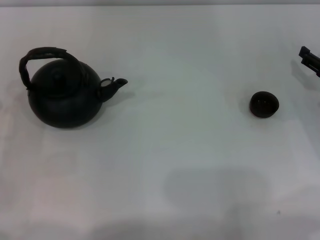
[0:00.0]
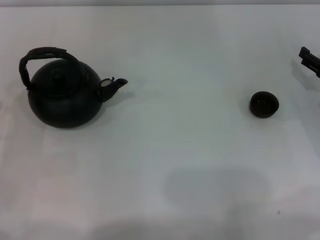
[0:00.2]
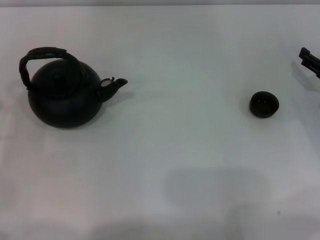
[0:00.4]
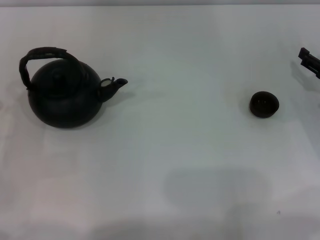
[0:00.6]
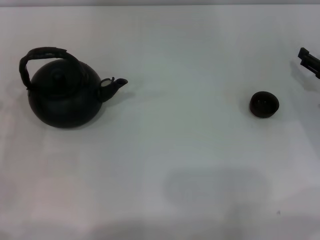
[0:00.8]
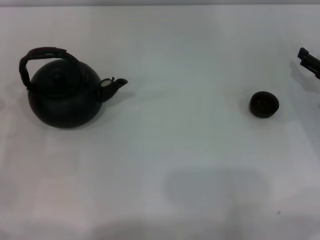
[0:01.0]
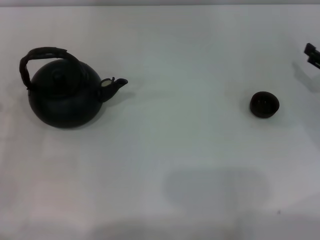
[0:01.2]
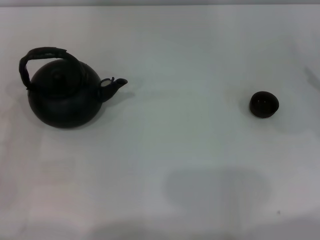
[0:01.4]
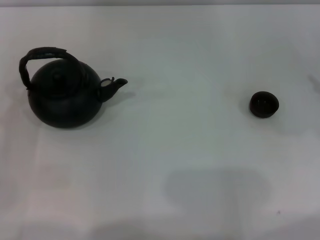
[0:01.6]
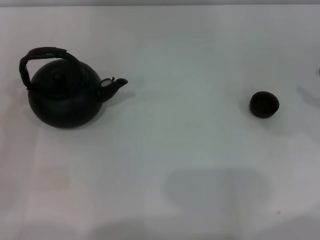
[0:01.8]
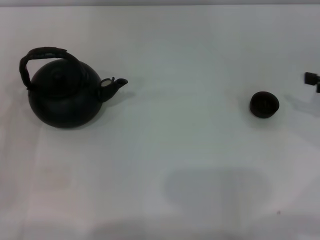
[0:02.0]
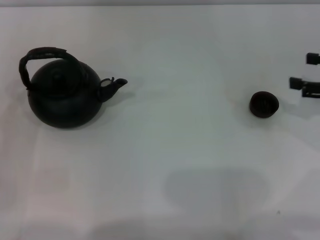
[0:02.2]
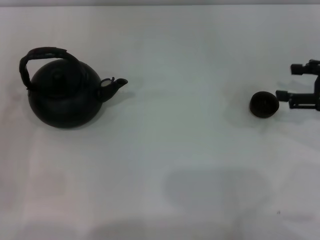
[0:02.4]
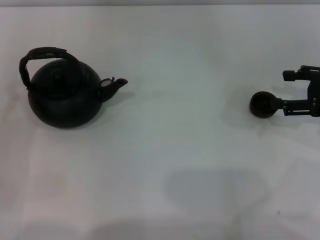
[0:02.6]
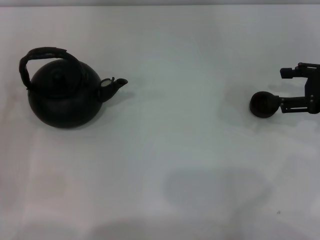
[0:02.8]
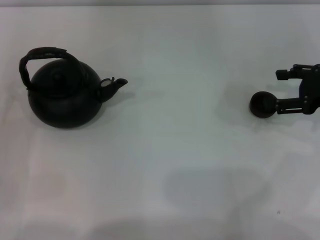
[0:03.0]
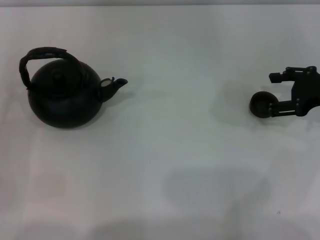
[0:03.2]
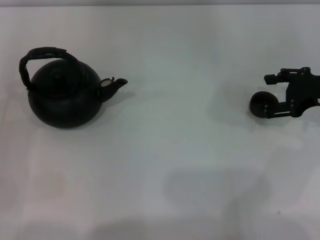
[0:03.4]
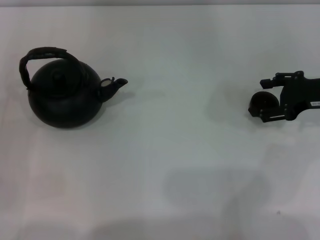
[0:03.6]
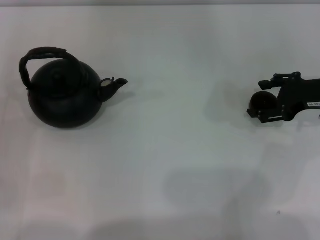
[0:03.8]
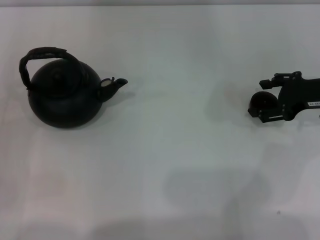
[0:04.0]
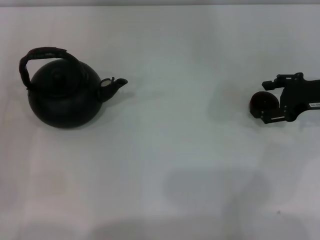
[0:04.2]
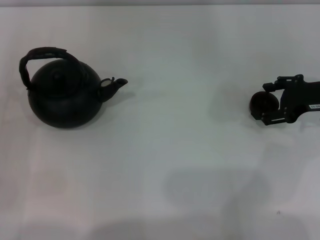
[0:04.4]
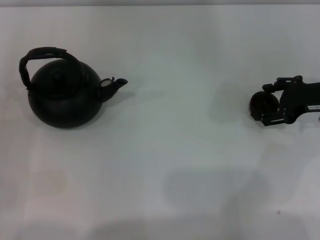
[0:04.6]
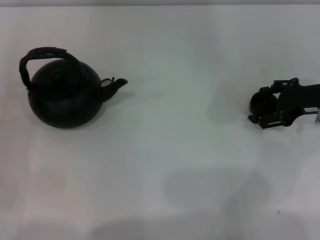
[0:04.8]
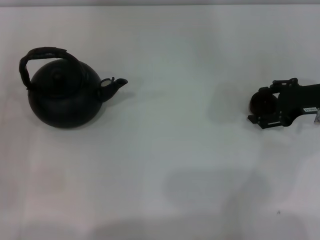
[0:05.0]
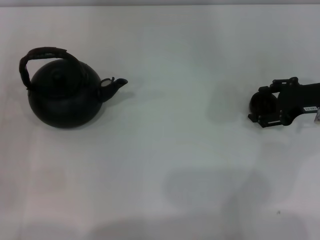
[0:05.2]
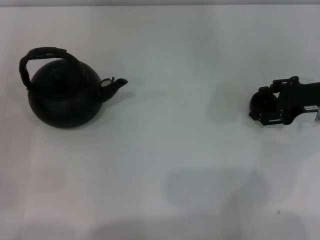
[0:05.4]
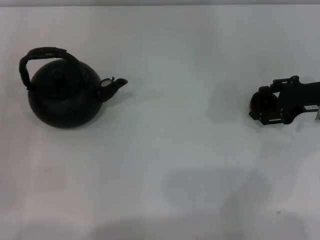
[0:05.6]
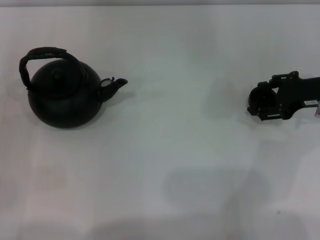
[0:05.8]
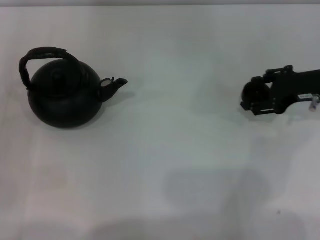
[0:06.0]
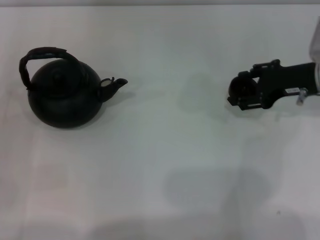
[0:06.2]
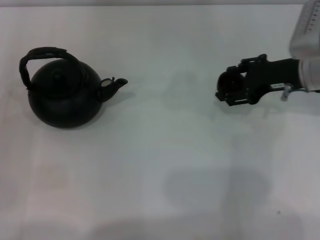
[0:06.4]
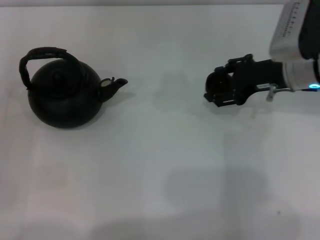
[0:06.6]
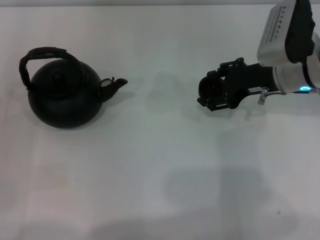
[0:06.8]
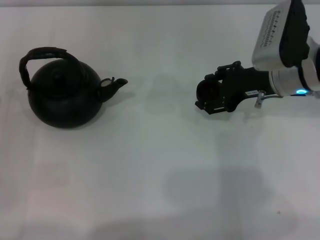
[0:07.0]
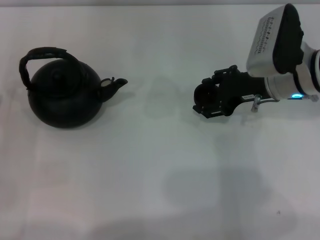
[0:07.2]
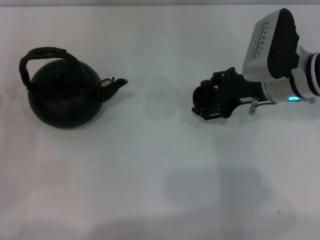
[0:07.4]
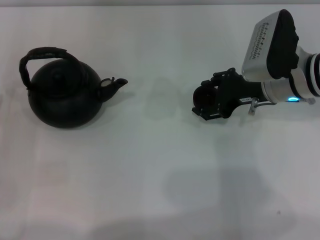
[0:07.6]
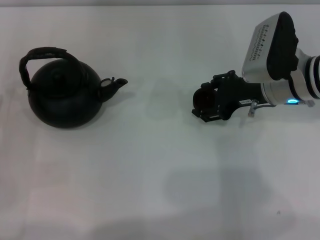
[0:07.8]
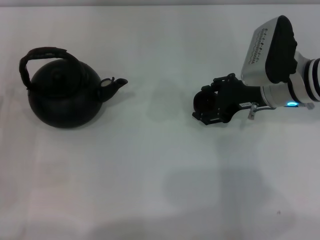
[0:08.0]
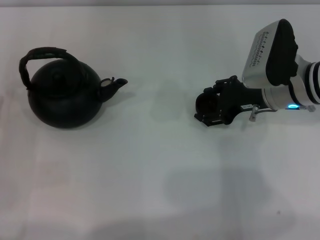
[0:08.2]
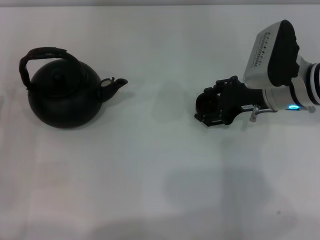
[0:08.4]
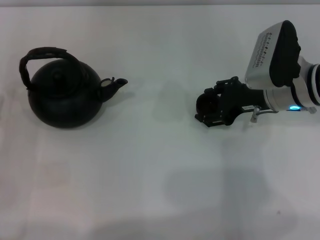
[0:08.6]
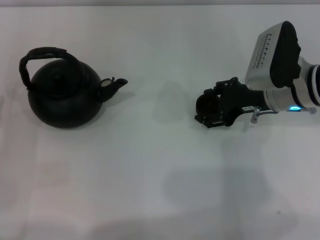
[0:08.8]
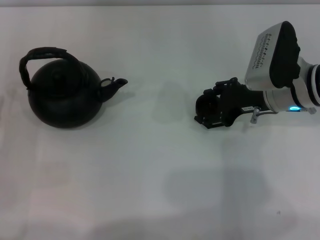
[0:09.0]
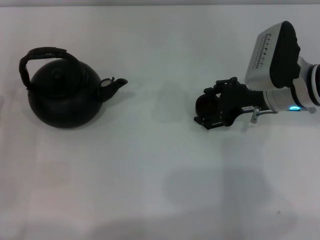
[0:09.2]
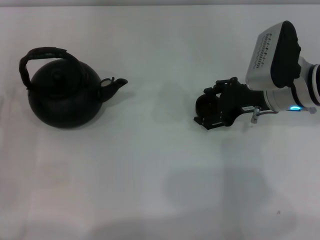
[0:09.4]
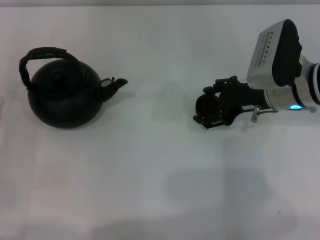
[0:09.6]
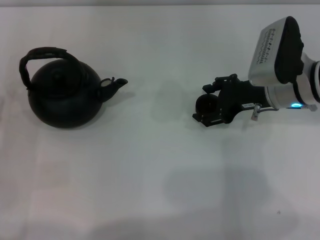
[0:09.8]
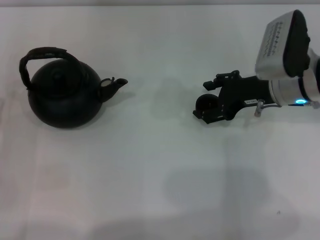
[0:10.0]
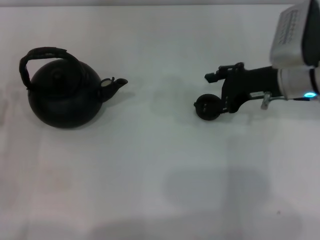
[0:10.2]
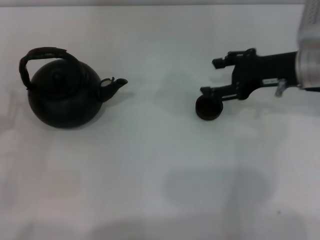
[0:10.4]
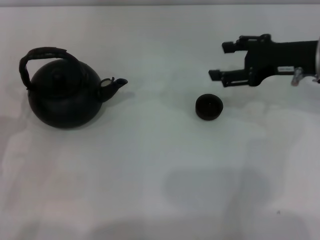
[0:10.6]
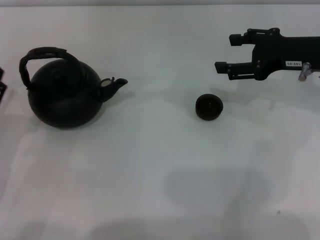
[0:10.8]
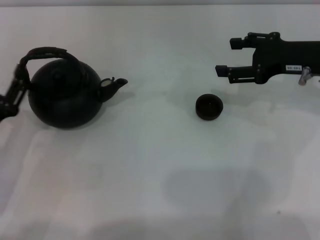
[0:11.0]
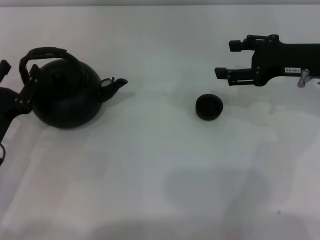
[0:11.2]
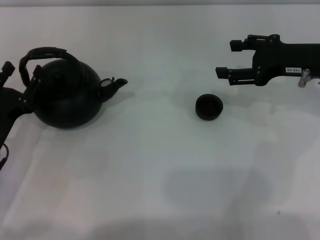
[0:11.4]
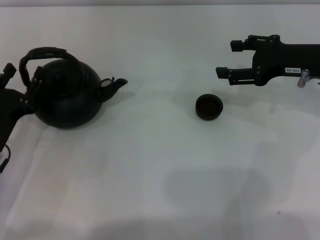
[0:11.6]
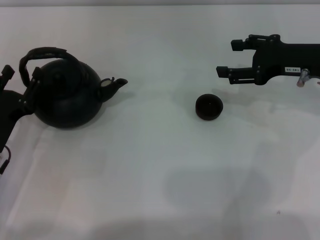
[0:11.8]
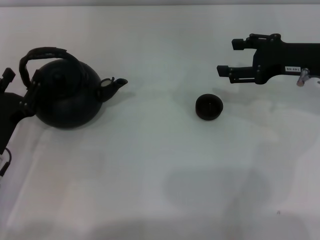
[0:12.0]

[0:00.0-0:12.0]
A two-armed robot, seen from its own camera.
Task of the whole recording: Grasp the handle of the teapot with one hand and pour tea into the teacup.
Step, 0:00.0 to 0:06.2: Pick up the teacup with the right gripper.
Step, 0:06.4 to 0:11.6: Place the teacup in the center of view with the right gripper.
0:01.6 to 0:03.0: The right gripper goes roughly 10 cm to the left.
0:03.0 to 0:06.0: The grippers move only a little.
0:06.0 to 0:07.6: The right gripper shifts approximately 10 cm to the left.
0:07.6 to 0:09.0: The grippers make only small movements.
0:09.0 to 0:10.4: The right gripper ends up approximately 5 cm from where it was.
0:10.4 to 0:12.0: The left gripper ends up about 5 cm from where it was.

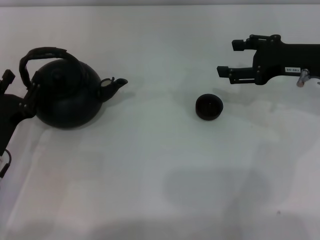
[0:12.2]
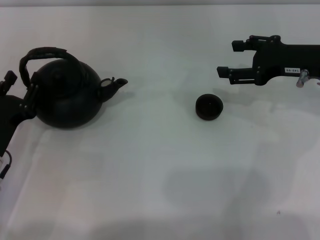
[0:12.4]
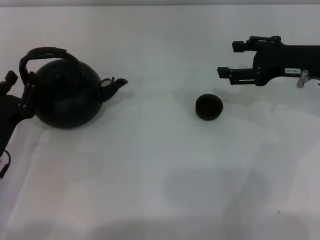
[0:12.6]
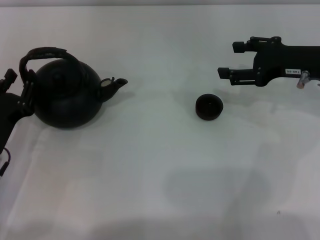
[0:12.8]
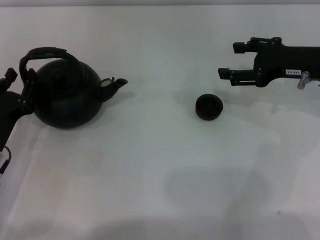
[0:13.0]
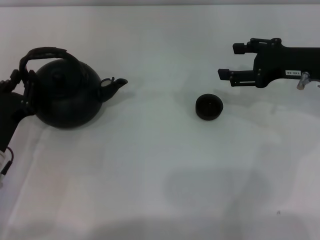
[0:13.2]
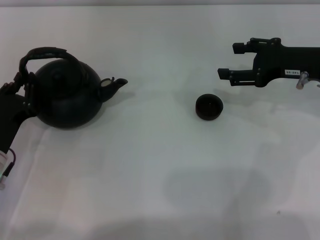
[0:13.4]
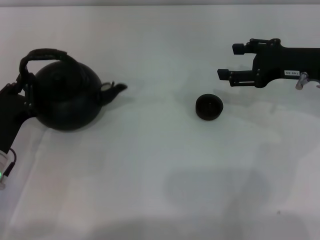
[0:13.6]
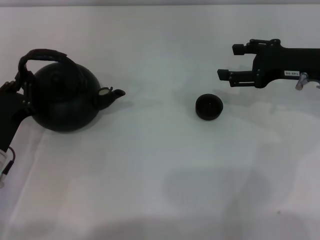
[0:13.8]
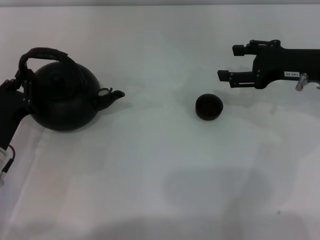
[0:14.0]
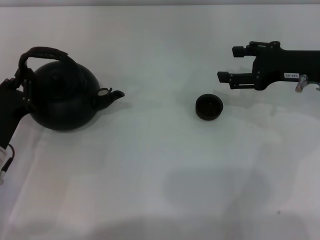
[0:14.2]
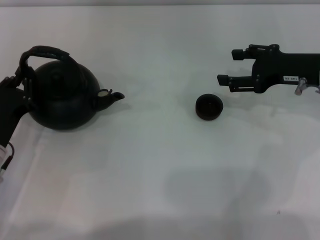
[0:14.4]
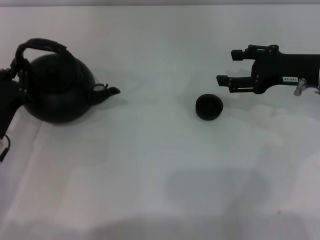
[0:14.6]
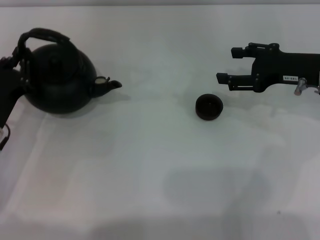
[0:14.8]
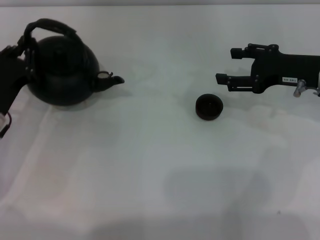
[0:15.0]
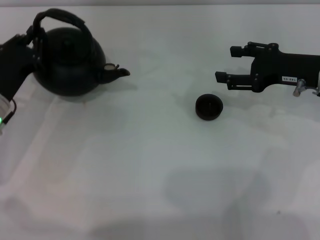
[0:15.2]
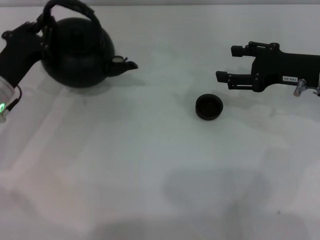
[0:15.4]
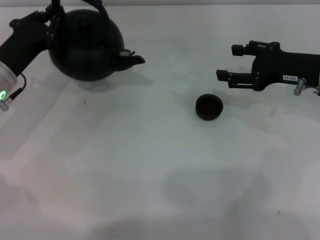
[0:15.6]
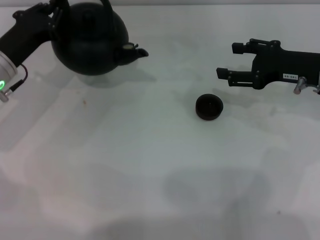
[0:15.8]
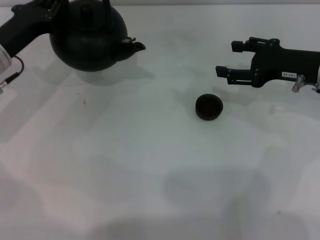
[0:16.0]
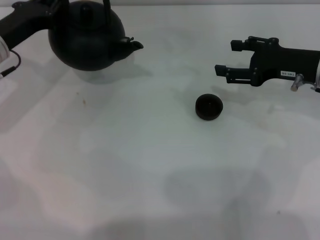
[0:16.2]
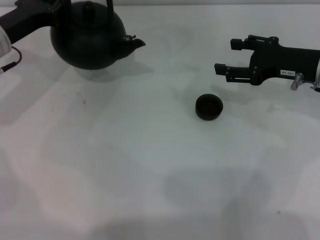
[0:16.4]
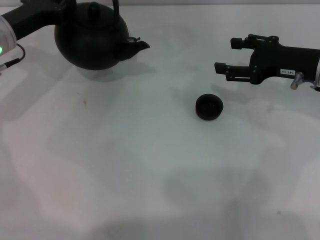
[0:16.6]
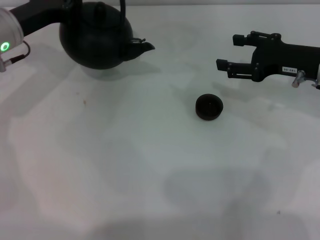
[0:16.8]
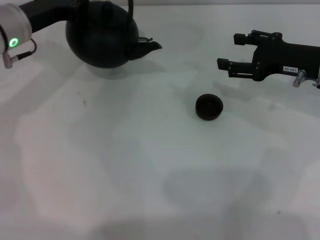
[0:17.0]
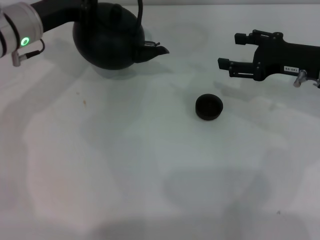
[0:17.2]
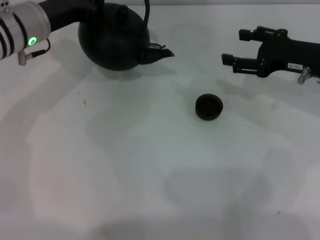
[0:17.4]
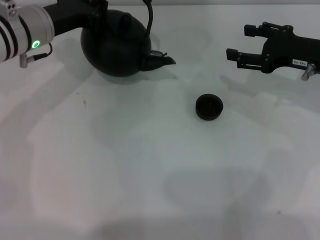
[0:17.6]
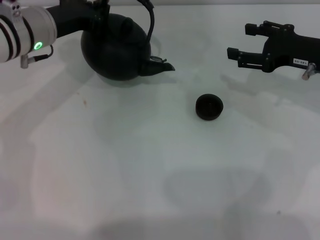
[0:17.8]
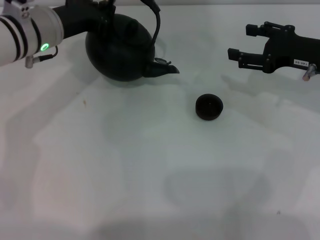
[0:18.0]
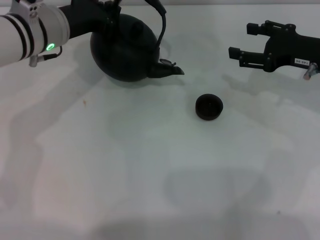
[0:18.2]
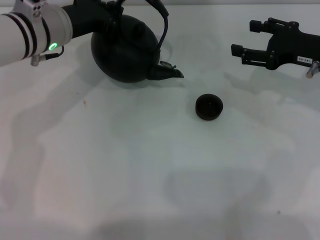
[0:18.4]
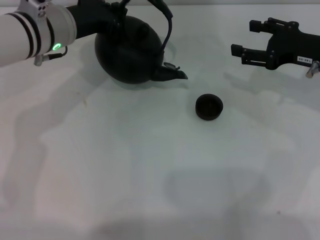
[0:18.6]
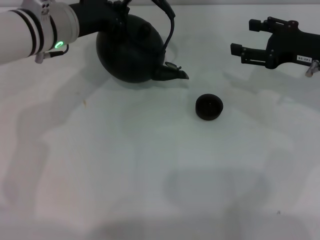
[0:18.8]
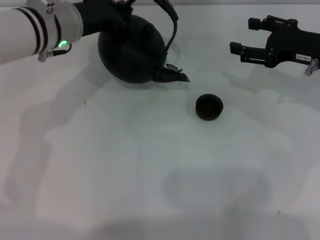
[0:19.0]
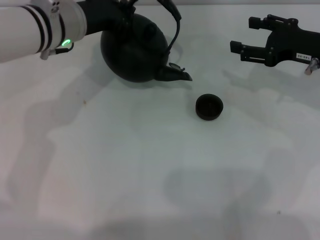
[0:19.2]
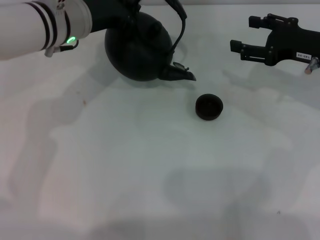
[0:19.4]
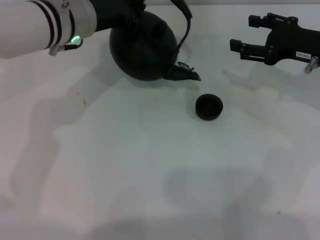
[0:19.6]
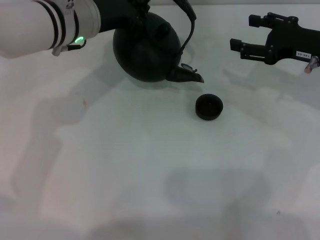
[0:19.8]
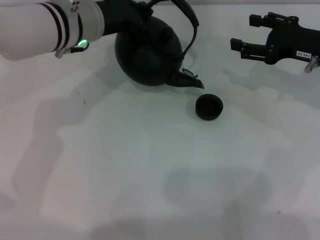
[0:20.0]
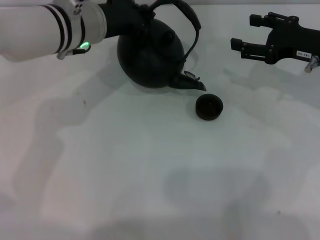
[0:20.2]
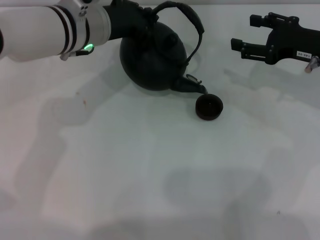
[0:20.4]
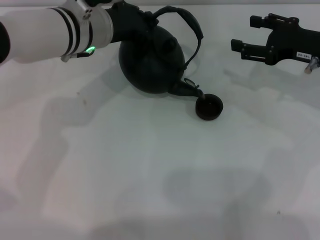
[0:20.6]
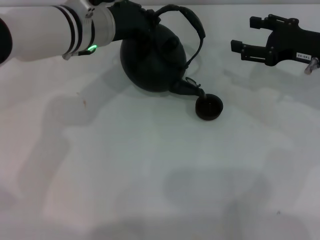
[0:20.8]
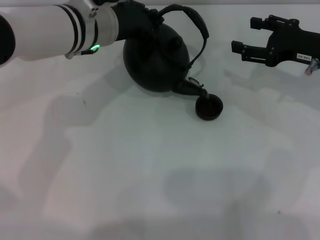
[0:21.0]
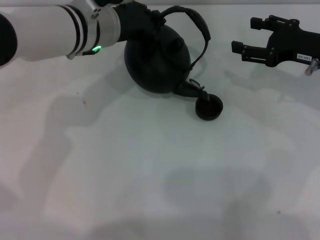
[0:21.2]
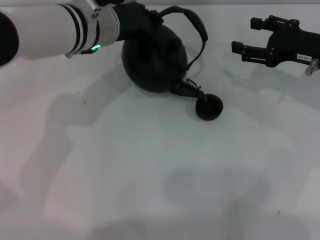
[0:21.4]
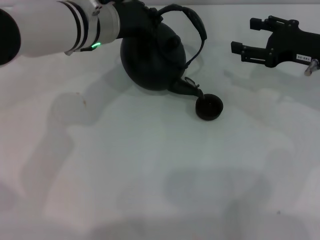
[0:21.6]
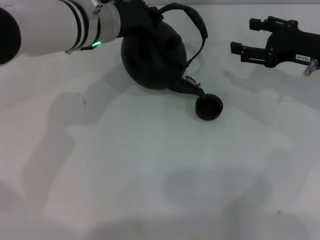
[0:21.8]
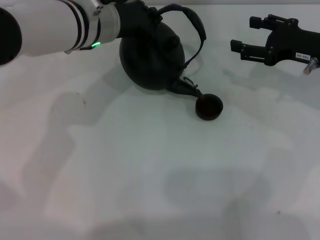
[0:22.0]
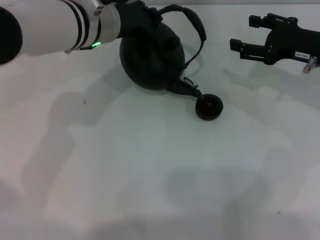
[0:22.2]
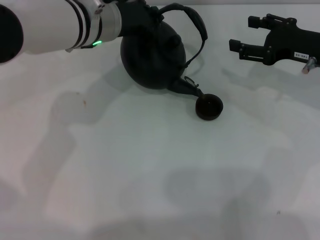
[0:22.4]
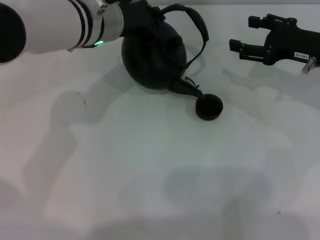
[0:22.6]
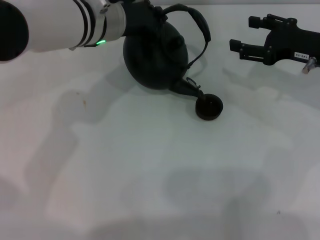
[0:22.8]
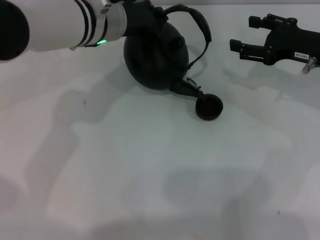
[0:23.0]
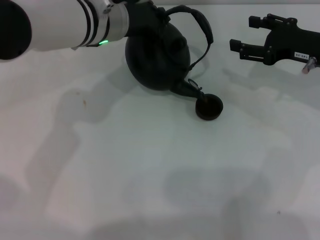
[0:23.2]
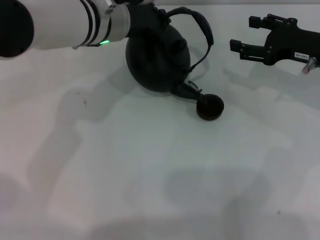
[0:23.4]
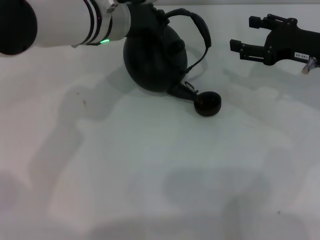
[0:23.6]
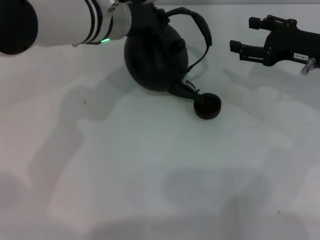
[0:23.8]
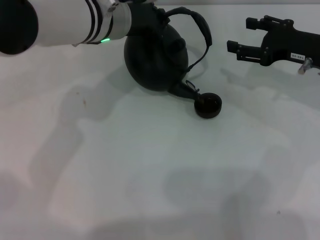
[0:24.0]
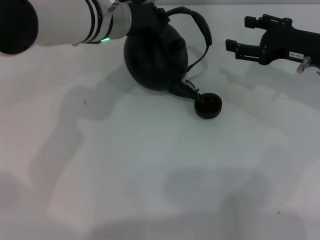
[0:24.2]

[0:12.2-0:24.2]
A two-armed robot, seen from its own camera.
Task of the whole recording: Grasp the handle of the teapot with one hand and pour tea into the teacup.
Step, 0:12.2 to 0:17.8: Pick up the teapot with the left gripper.
0:12.2 to 0:13.8: The left gripper closes.
0:13.8 to 0:15.2: The left gripper is displaced forward by about 5 cm.
0:15.2 to 0:16.6: The left gripper goes approximately 10 cm forward and upward.
0:16.6 to 0:18.2: The left gripper moves to the right, approximately 10 cm.
0:18.2 to 0:19.8: The grippers move only a little.
0:19.8 to 0:22.6: There are only small adjustments of the grippers.
0:22.6 to 0:24.2: Both grippers stay about where they are.
